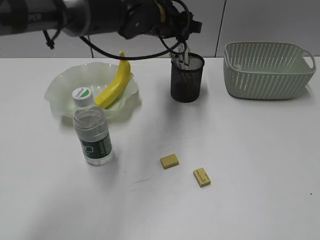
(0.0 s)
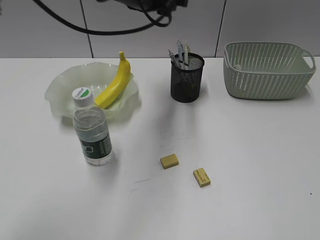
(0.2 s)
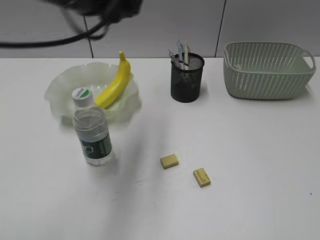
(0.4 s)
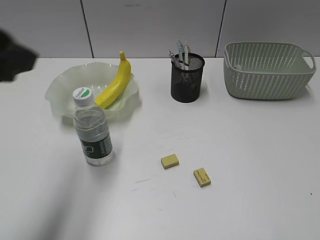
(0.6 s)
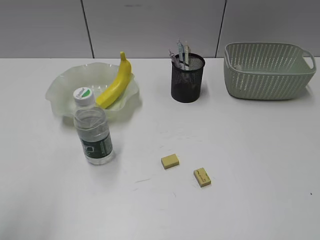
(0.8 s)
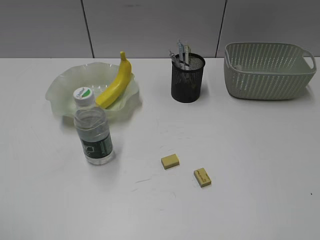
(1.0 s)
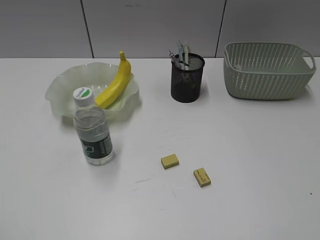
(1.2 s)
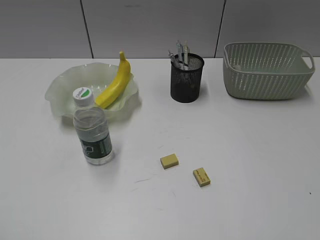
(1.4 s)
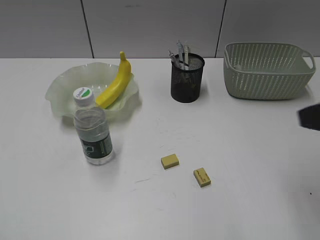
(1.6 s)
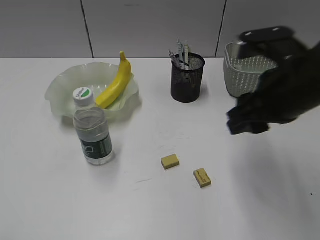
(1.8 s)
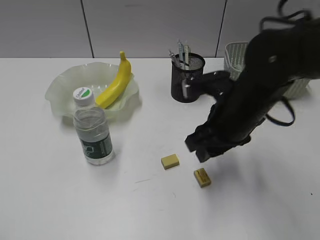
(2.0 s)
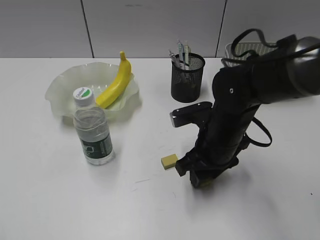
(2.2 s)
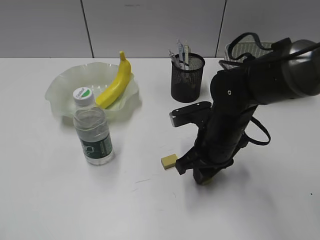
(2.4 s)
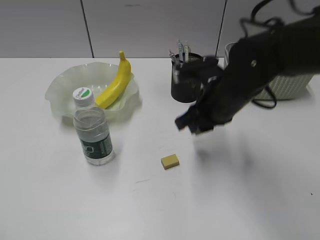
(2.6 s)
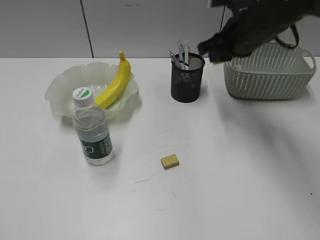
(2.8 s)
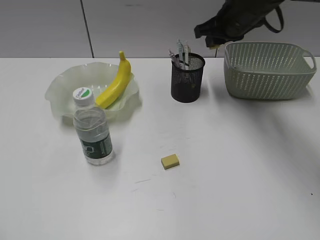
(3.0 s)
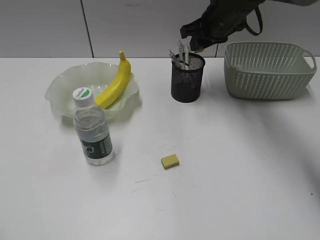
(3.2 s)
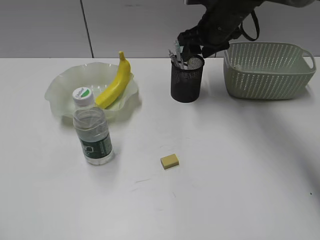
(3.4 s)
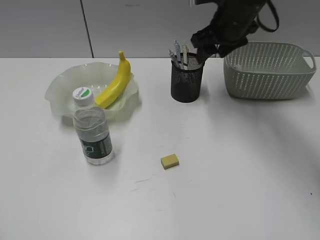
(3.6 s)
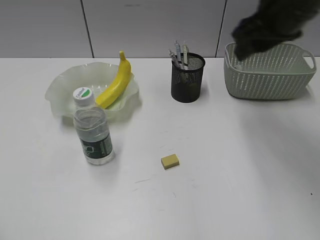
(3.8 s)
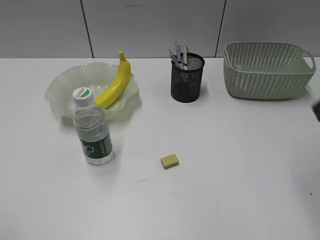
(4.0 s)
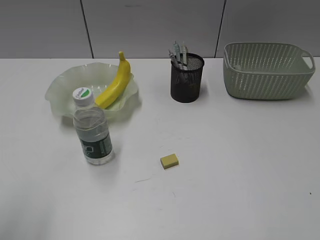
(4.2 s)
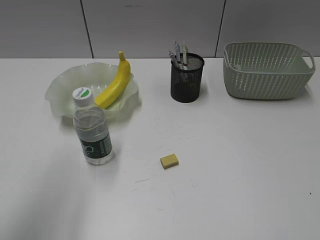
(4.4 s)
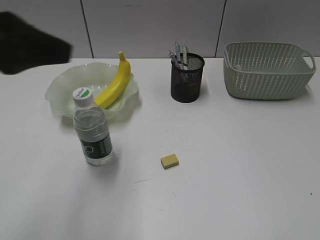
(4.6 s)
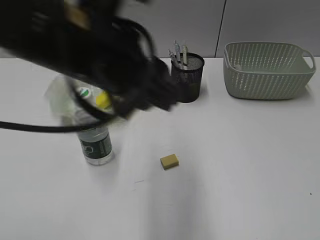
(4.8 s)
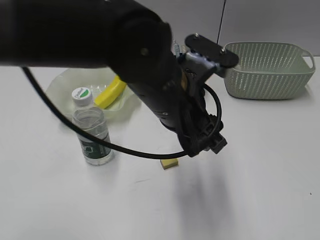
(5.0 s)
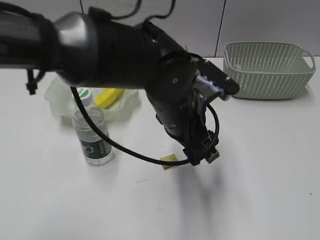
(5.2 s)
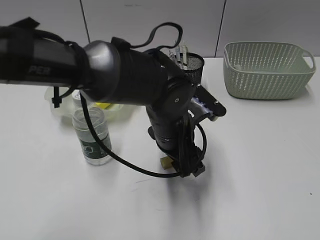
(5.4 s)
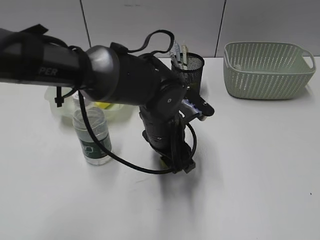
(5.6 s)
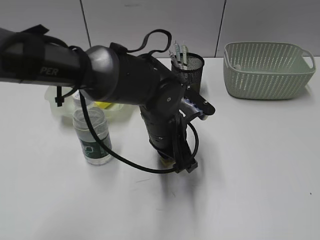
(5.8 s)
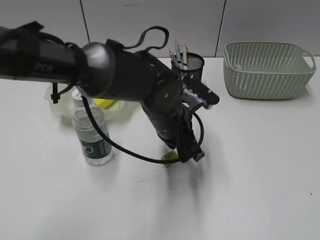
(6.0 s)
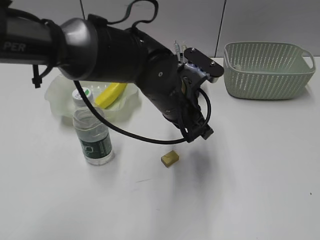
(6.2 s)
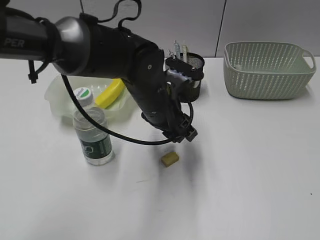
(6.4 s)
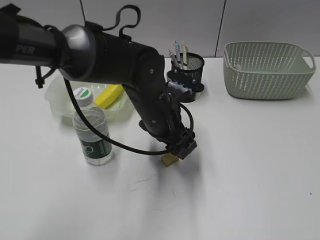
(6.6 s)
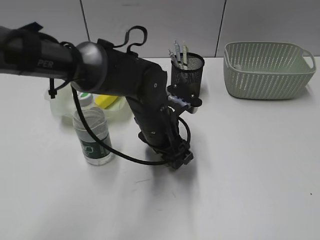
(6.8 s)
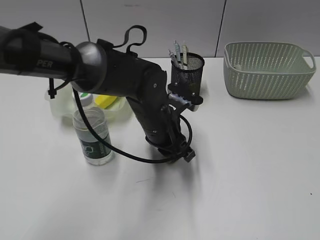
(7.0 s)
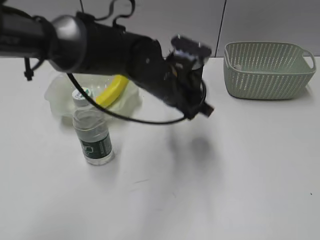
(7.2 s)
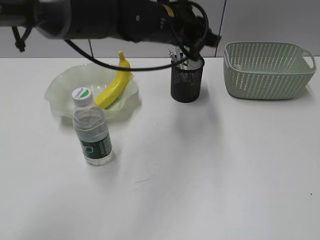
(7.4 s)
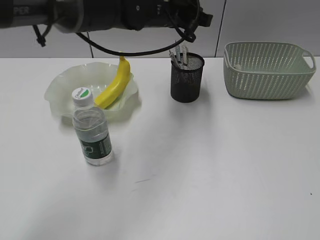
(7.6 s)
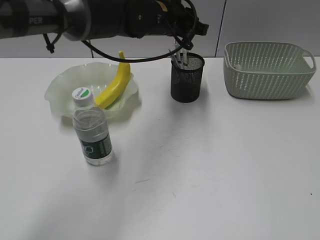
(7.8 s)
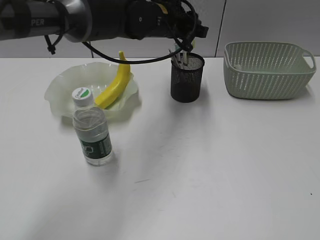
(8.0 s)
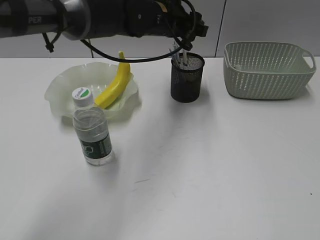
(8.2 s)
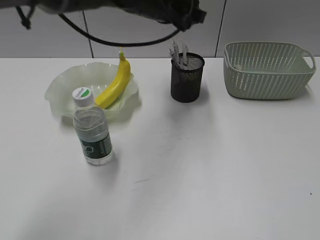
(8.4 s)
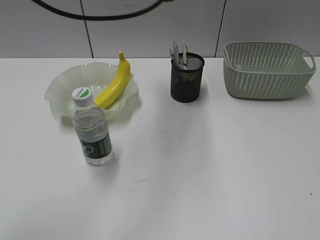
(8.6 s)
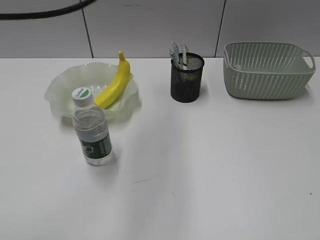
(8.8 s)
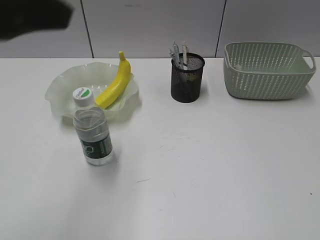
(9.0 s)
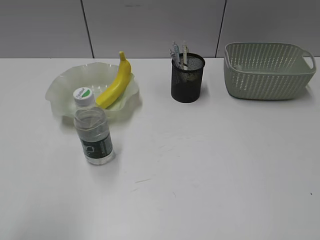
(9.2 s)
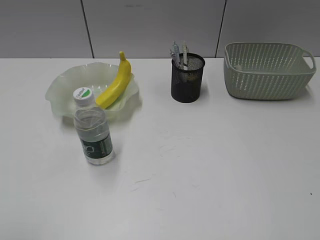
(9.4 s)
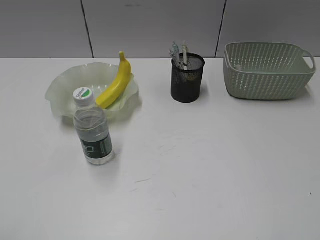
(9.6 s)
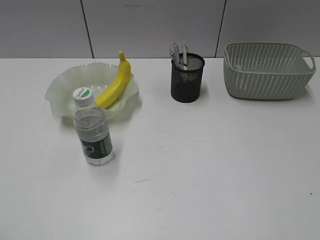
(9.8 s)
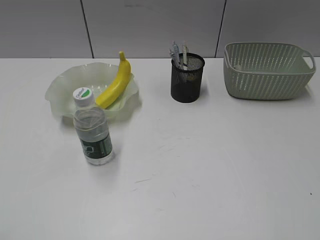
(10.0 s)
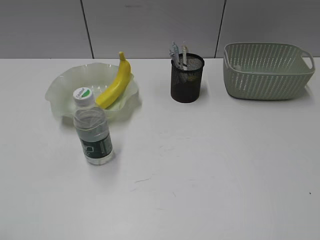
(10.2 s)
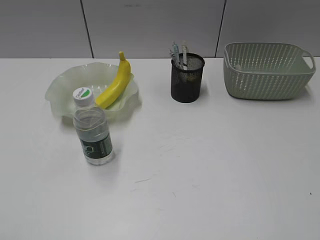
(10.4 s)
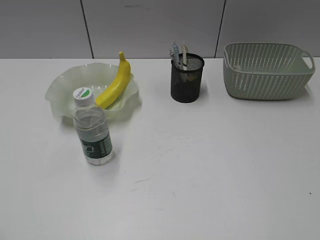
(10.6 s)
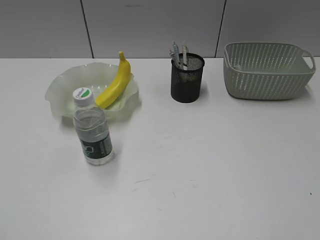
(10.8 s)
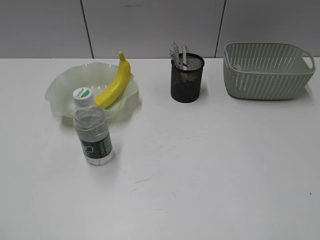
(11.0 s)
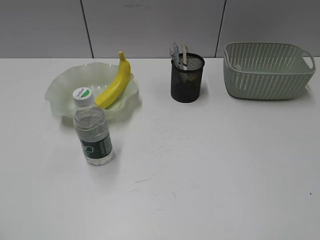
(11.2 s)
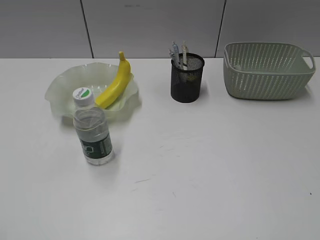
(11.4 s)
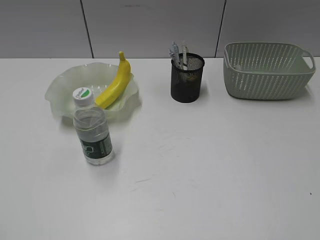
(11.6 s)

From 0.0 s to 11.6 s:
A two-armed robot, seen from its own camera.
Step, from 0.0 s to 2.4 s: Grasp the eraser with right gripper.
Step, from 2.6 s to 3.4 s: Place the eraser in pen holder with right gripper.
Step, from 3.6 s to 6.8 s: Grasp the eraser with left gripper.
Step, from 7.0 s to 8.2 s: Place the eraser in pen holder with left gripper.
From 0.0 s to 1.4 s: The left gripper travels backward and to the left by approximately 60 cm; the right gripper travels forward by approximately 5 cm.
From 1.4 s to 2.8 s: The right gripper travels forward and to the left by roughly 35 cm, and closes up.
From 2.8 s to 4.4 s: The left gripper is displaced forward and to the right by approximately 15 cm. Meanwhile the right gripper heads backward and to the right, covering approximately 40 cm, and opens and closes again.
From 4.4 s to 5.8 s: The left gripper heads to the right, downward and forward, covering about 40 cm, and closes its fingers.
From 5.8 s to 7.2 s: The left gripper moves up and down over some 5 cm, changing direction 2 times, and opens, then closes once more.
From 7.2 s to 8.8 s: The left gripper is displaced upward and to the left by some 25 cm.
From 8.8 s to 10.2 s: The left gripper goes roughly 40 cm backward and to the left.

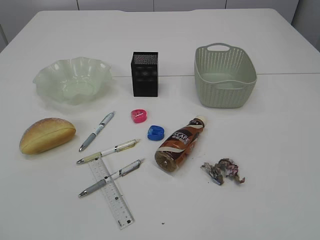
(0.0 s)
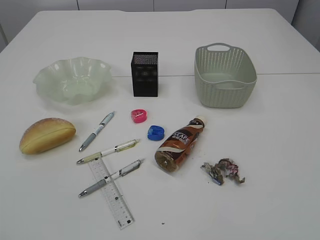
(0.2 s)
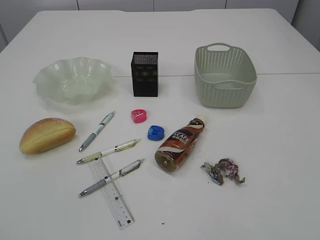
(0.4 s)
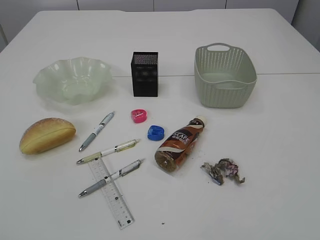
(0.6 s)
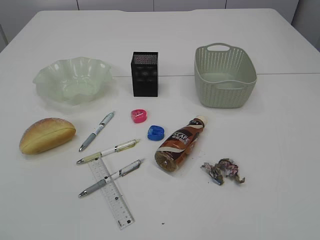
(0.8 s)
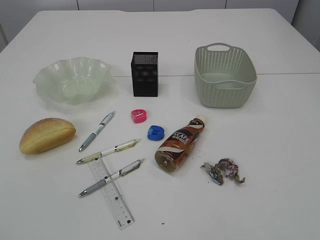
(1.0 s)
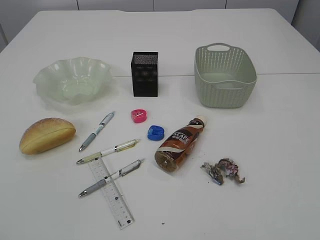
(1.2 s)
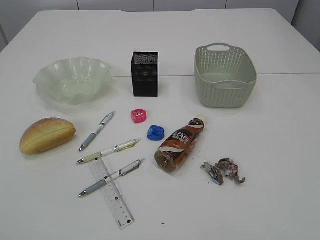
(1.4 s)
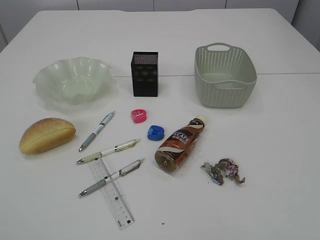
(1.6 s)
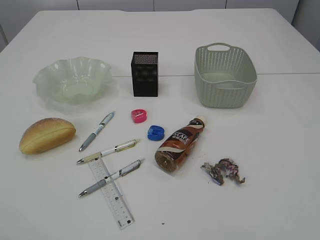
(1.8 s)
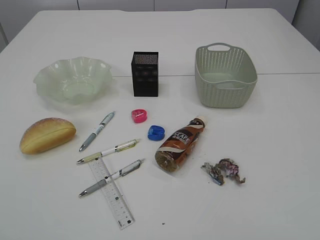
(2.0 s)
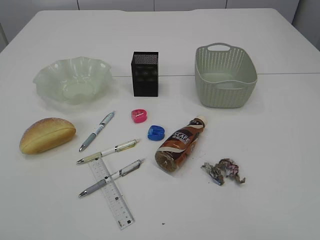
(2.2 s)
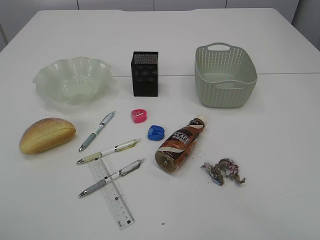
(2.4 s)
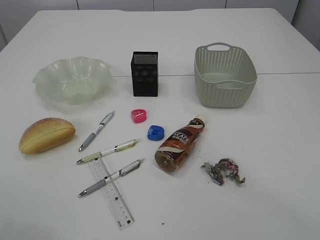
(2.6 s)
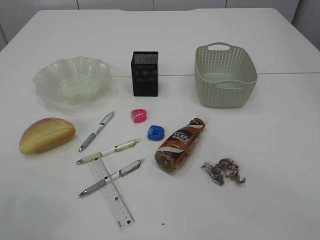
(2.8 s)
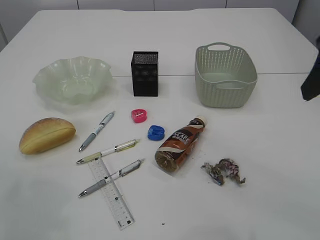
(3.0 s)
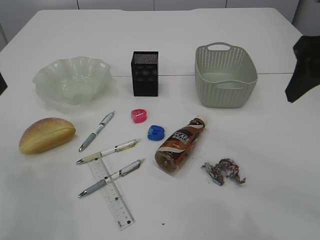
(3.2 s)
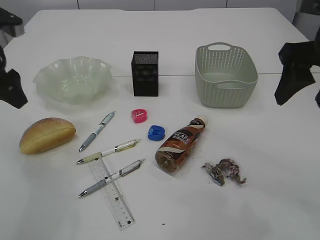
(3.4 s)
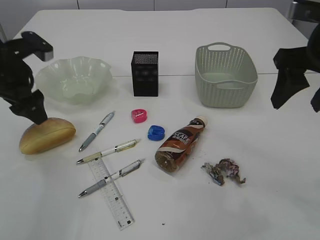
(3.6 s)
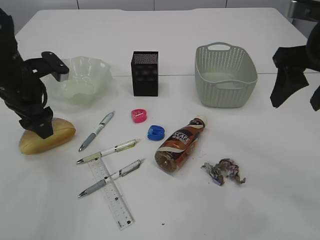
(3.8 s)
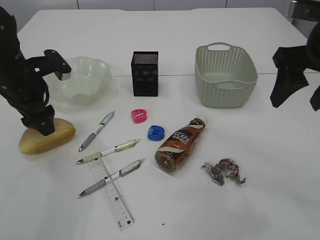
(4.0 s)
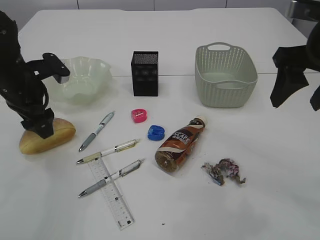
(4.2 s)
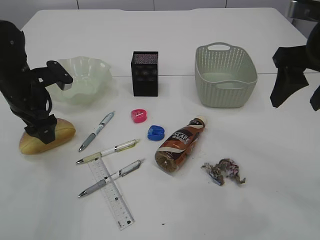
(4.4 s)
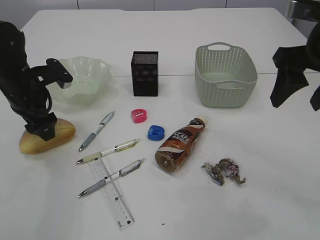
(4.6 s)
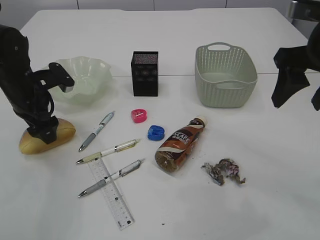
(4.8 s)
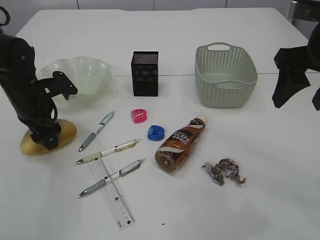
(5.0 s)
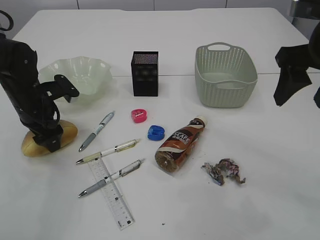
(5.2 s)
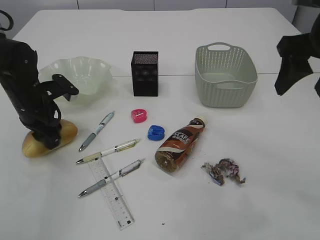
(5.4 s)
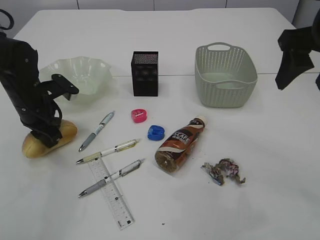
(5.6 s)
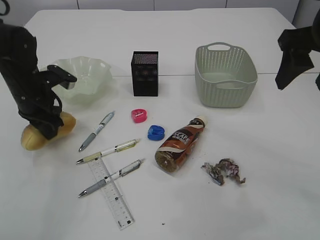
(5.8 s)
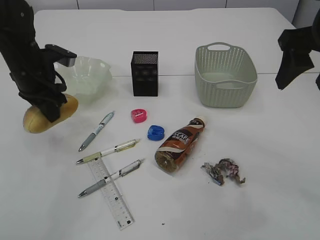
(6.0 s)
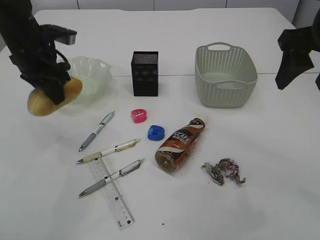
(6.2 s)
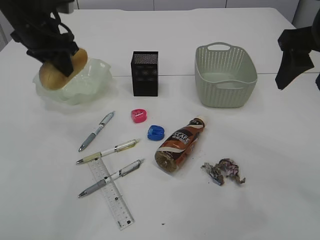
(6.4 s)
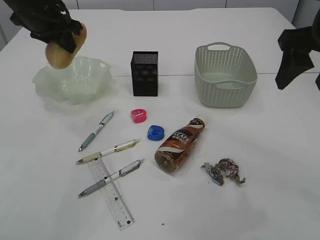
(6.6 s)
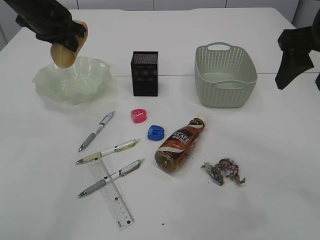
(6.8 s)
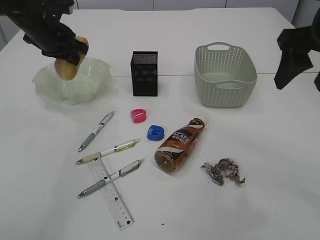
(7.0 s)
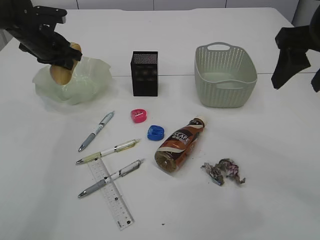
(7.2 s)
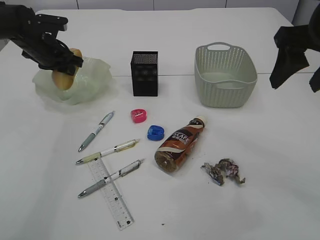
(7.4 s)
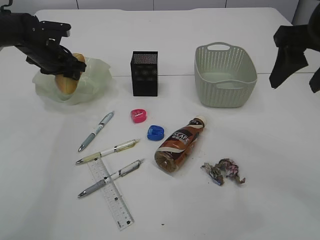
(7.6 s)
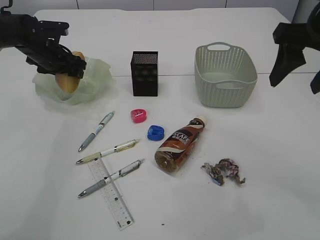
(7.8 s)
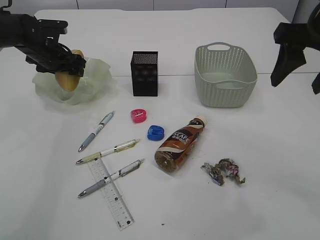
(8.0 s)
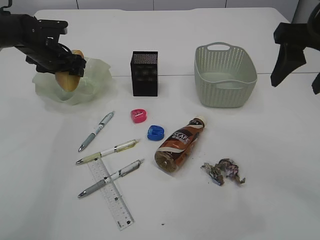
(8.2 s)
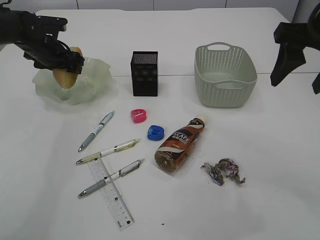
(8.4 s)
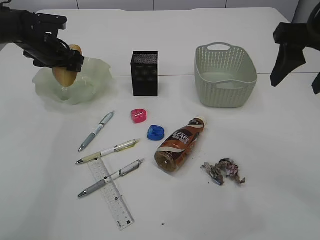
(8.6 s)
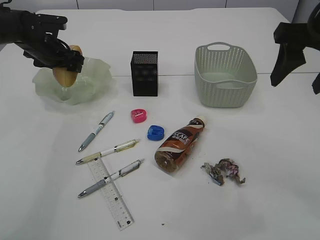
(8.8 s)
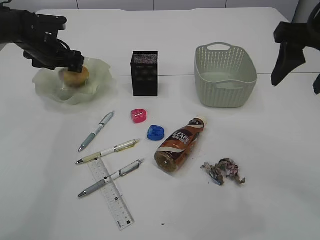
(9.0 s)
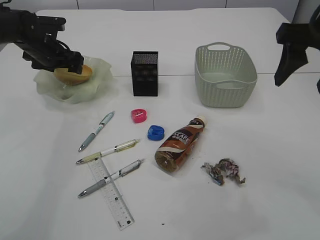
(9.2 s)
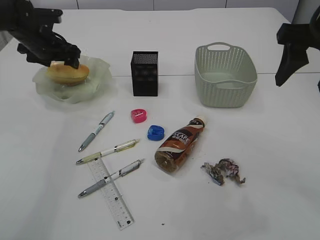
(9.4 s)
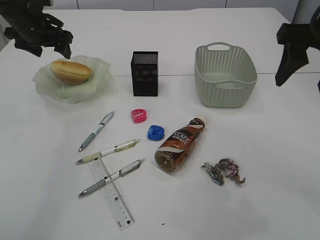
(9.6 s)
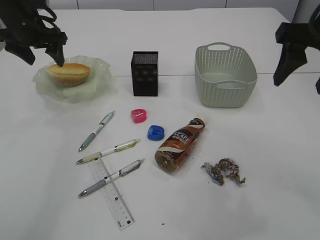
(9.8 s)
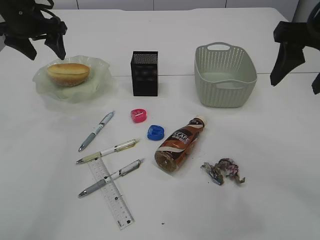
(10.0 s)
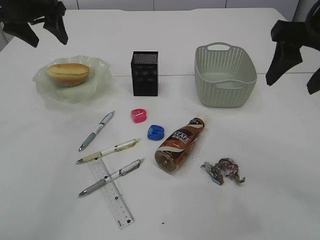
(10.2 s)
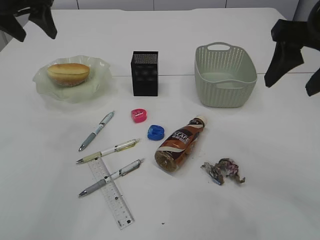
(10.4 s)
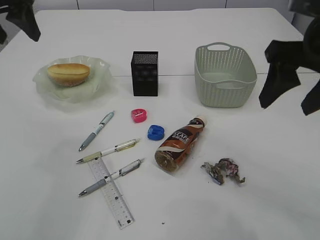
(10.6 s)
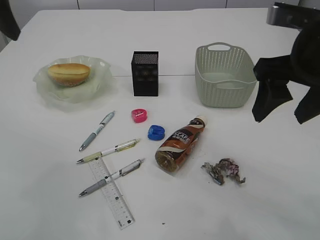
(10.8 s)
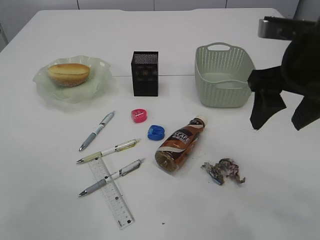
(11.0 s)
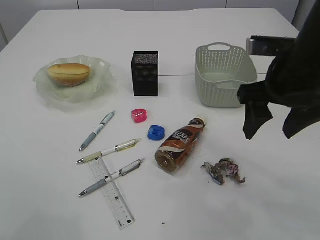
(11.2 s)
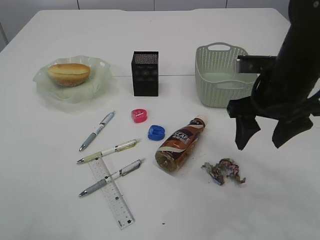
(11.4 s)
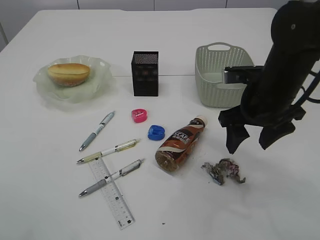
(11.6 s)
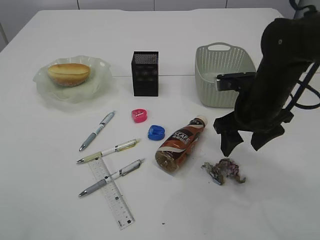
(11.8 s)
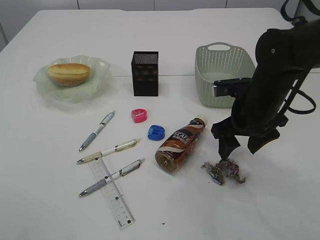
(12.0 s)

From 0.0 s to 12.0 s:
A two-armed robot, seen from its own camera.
Step, from 6.0 s to 9.6 s: place the bread in the plate.
From 1.6 s to 3.0 s: The grippers both shift forward by roughly 25 cm. The left gripper opens up.
From 3.0 s to 4.4 s: The right gripper goes some 5 cm forward; the left gripper moves downward and forward, about 20 cm.
From 4.4 s to 6.0 s: The left gripper closes its fingers.
From 6.0 s to 7.6 s: The left gripper heads forward, covering about 10 cm, and goes upward and returns, some 10 cm each way.
From 7.6 s to 9.0 s: The left gripper opens its fingers.
From 9.0 s to 10.4 s: The left gripper goes roughly 20 cm upward and backward.
From 10.4 s to 12.0 s: The left gripper heads backward and upward, covering about 25 cm. Meanwhile the right gripper heads downward, covering about 15 cm.
